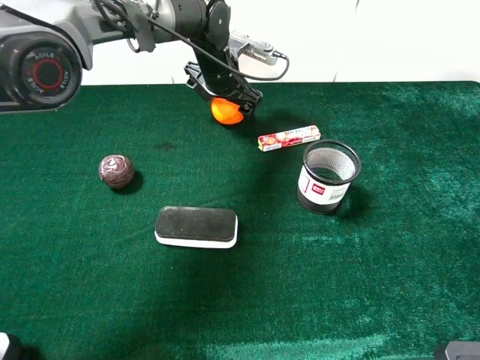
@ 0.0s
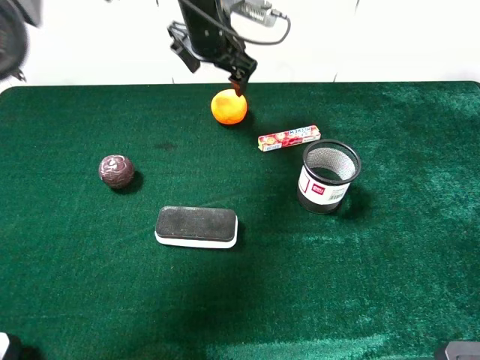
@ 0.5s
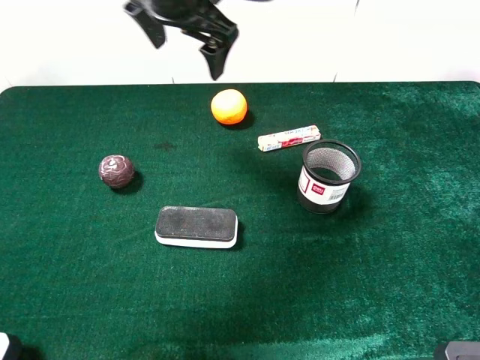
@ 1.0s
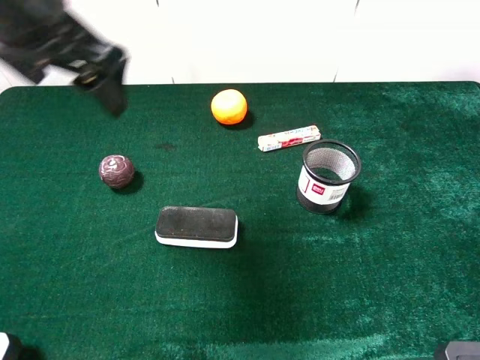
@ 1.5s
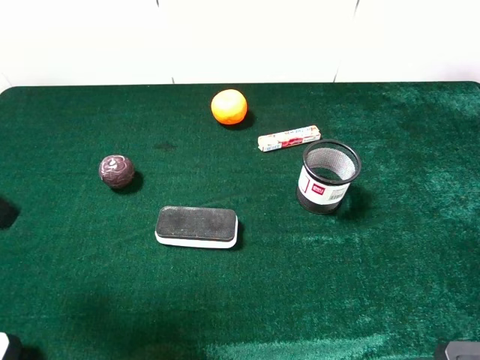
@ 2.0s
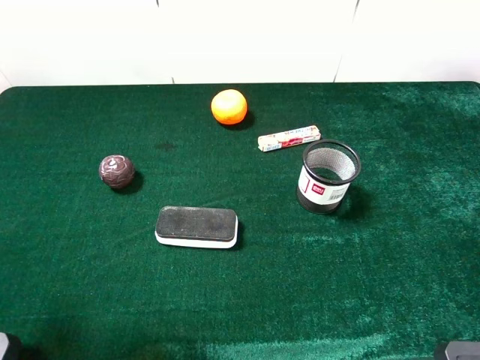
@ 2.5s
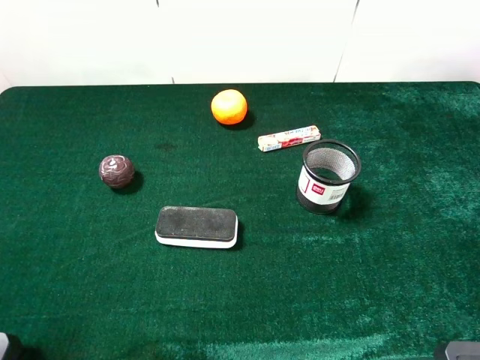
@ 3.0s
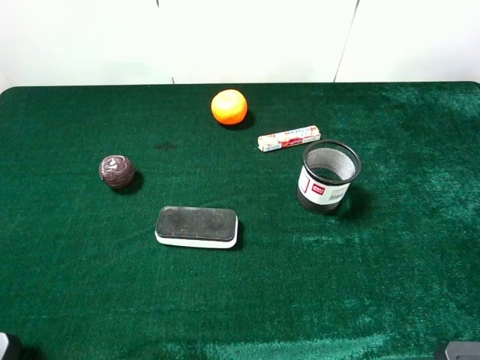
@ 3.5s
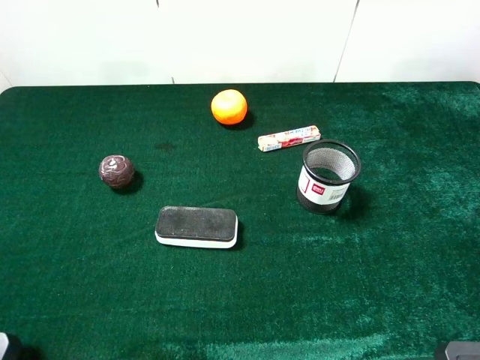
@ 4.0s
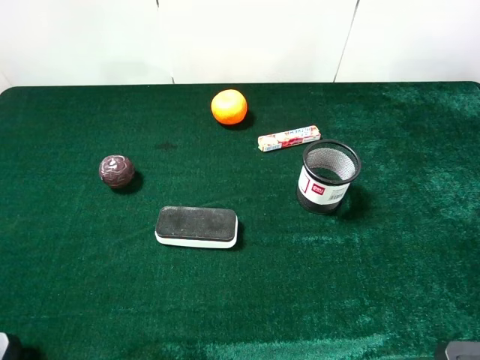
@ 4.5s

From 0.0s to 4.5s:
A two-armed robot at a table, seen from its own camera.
Task of the whole recording: the gripper move the object.
From 0.0s to 2.0s: The left gripper goes approximately 50 cm backward, to the left and upward.
From 2.0s to 4.5s: The left gripper shifts some 10 cm backward.
